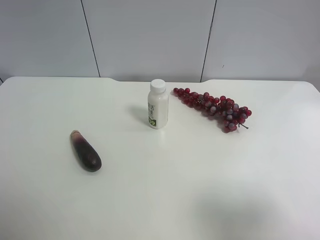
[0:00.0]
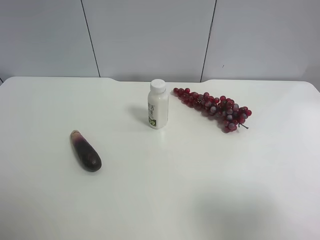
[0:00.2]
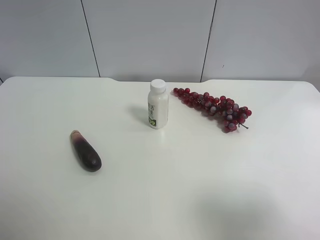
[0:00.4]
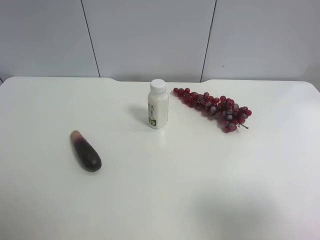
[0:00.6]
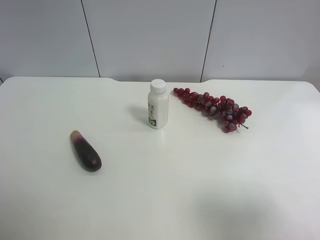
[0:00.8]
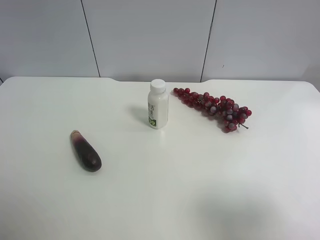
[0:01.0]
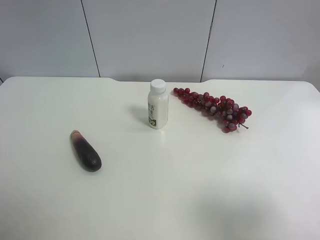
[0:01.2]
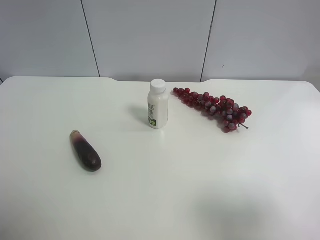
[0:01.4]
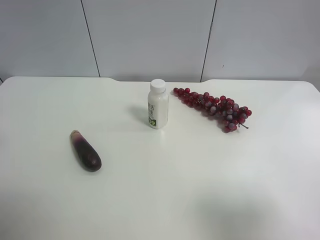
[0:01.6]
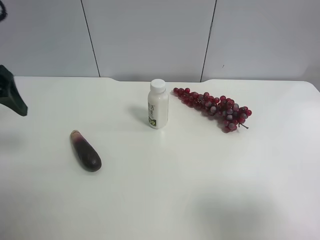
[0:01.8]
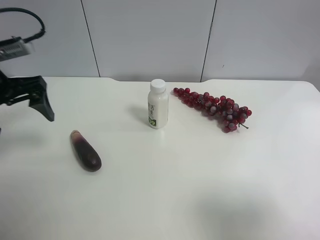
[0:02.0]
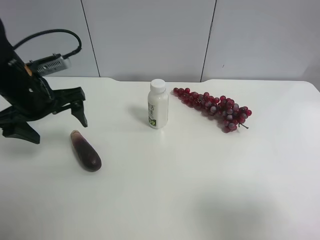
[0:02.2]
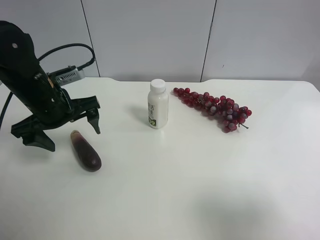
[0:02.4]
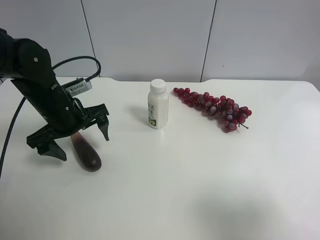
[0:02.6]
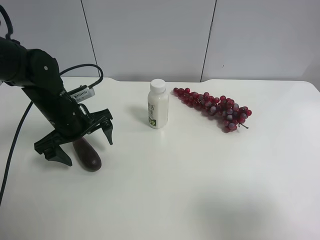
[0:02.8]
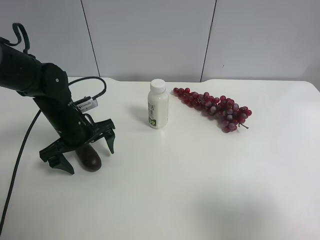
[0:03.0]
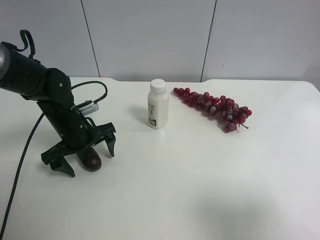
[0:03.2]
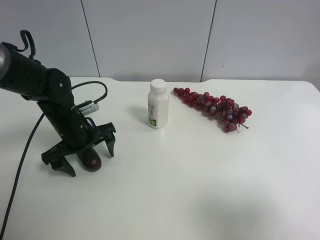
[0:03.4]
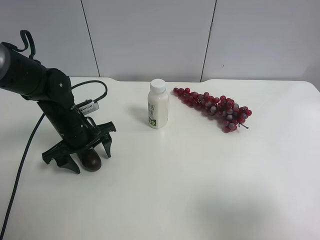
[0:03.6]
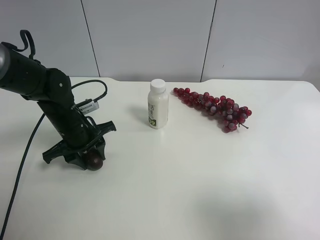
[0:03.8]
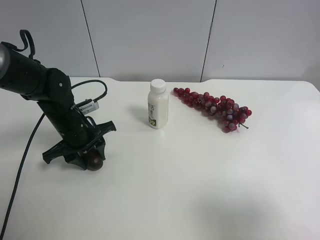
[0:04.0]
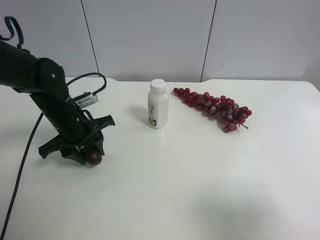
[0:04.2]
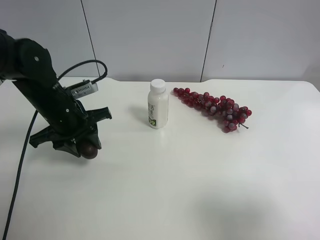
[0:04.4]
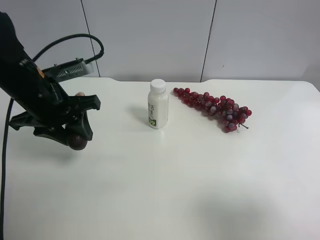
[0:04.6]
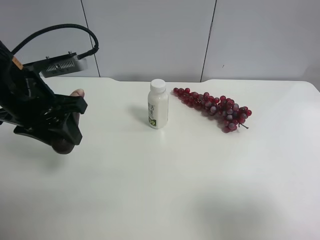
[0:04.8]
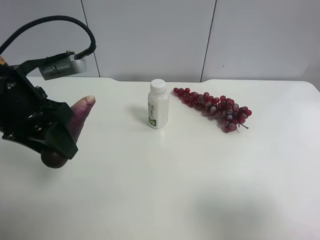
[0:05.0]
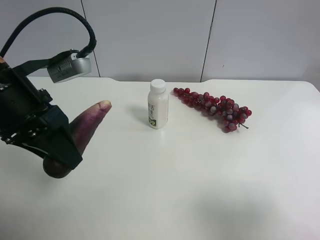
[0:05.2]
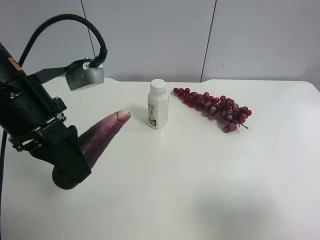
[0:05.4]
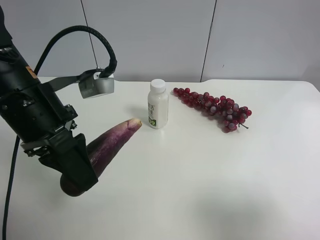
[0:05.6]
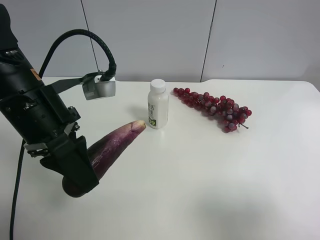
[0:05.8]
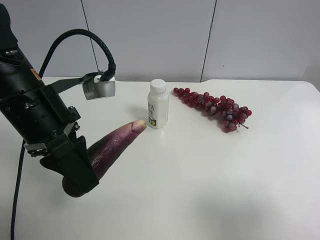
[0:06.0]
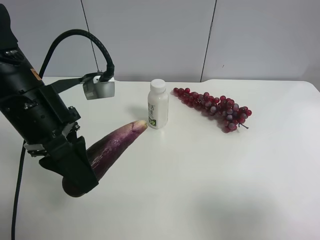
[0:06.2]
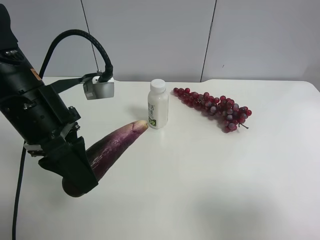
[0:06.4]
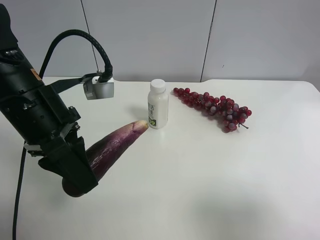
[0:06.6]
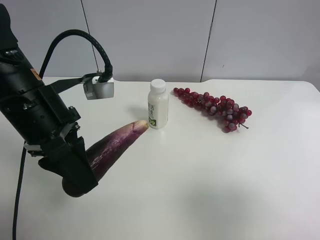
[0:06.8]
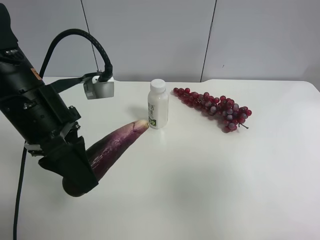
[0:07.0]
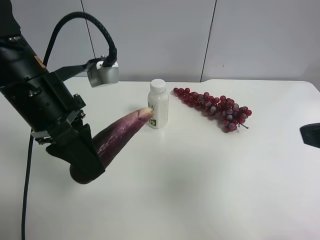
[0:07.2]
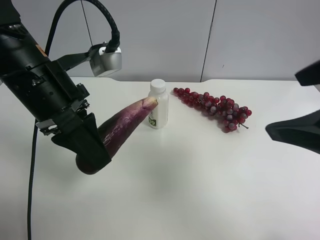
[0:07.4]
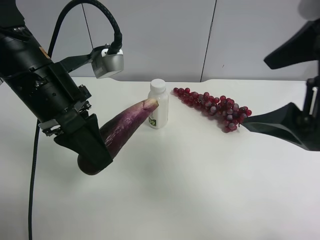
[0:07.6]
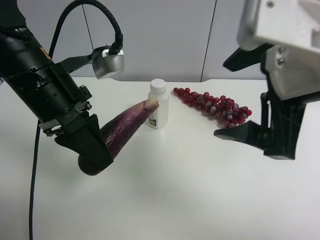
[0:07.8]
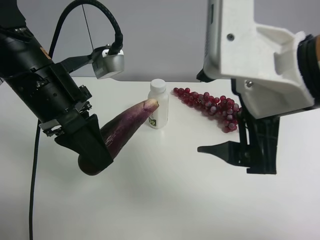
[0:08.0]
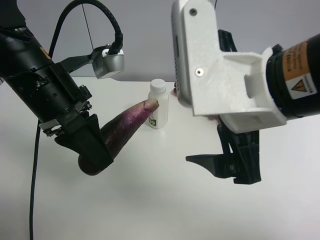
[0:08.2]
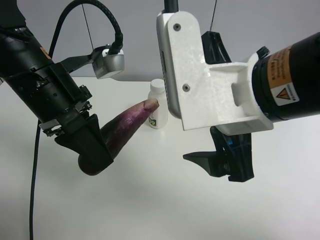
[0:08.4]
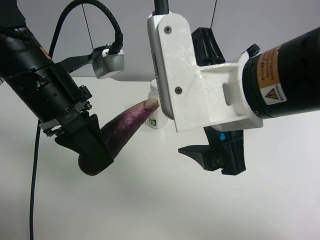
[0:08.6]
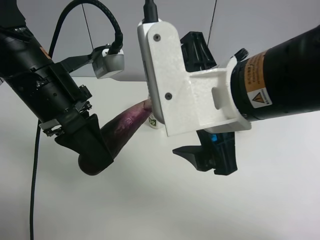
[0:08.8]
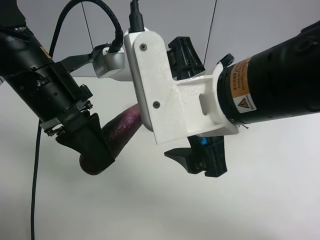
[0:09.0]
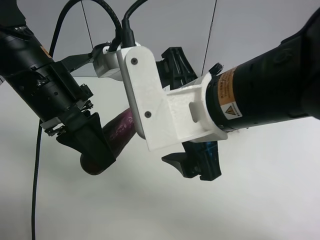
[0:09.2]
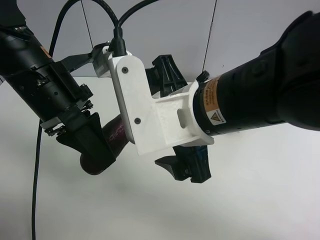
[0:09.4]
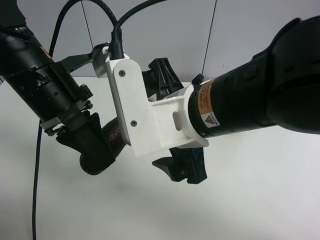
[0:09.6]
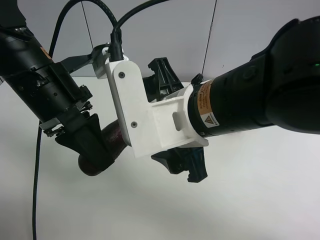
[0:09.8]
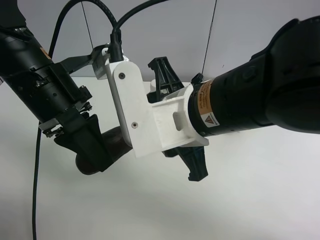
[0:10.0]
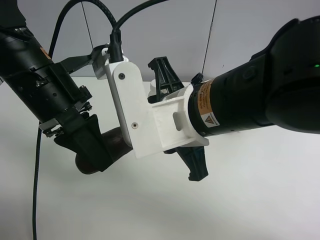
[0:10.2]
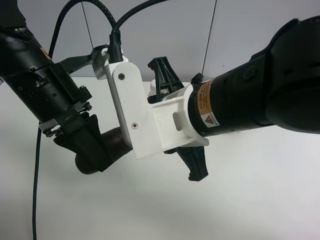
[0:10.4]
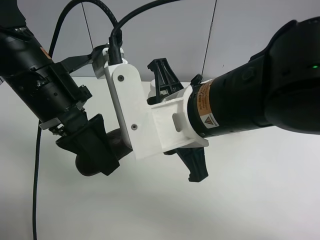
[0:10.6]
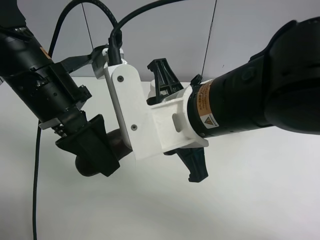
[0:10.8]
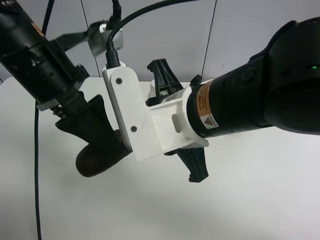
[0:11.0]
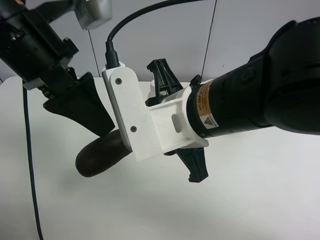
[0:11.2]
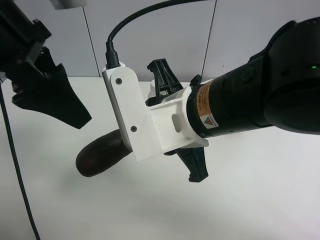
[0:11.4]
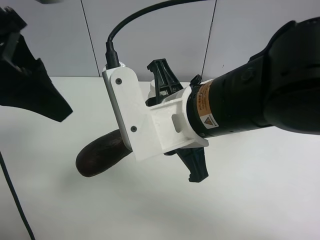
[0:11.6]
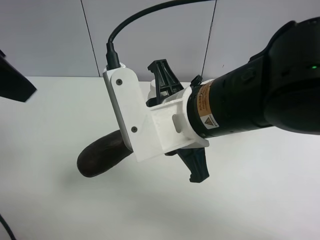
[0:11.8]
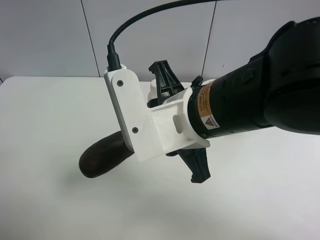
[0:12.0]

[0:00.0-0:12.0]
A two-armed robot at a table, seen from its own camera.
Task of the whole recording: use the left gripper to pick up the item and transfer it from the left gripper to the right gripper.
0:01.6 to 0:03.0: The left gripper shifts about 30 cm downward, to the right and forward.
0:03.0 to 0:04.4: The left gripper goes about 5 cm upward, and closes.
0:04.4 to 0:06.0: The left gripper travels backward and upward by approximately 10 cm.
0:06.0 to 0:07.6: The right gripper travels forward, to the left and upward by about 20 cm.
0:07.6 to 0:09.0: The right gripper shifts roughly 10 cm to the left and downward.
0:09.0 to 0:10.4: The right gripper closes.
0:10.4 to 0:12.0: The left gripper heads upward, to the left and backward, covering about 20 cm, and opens up.

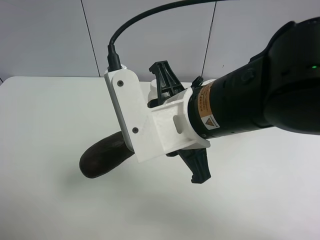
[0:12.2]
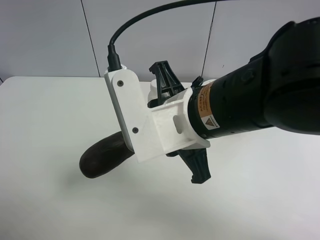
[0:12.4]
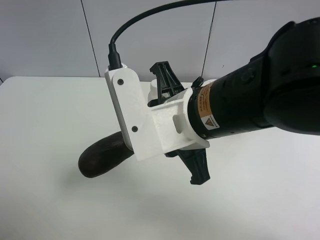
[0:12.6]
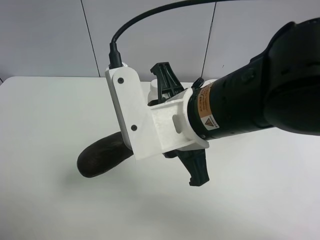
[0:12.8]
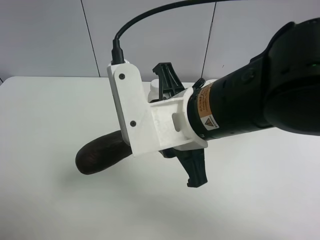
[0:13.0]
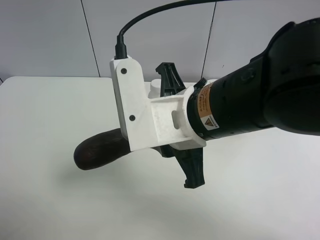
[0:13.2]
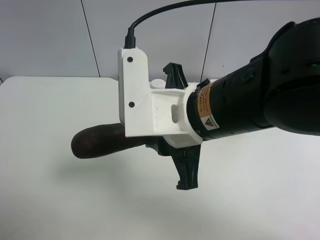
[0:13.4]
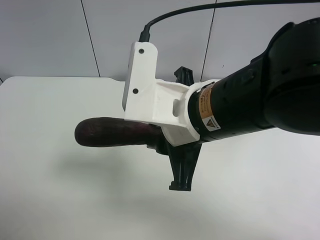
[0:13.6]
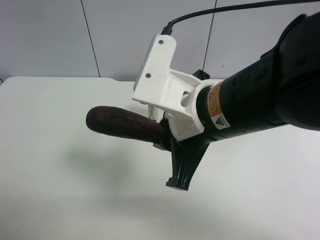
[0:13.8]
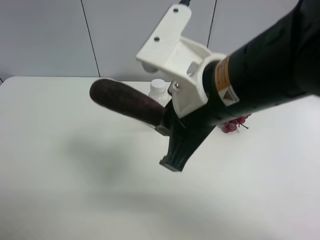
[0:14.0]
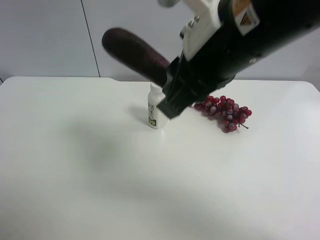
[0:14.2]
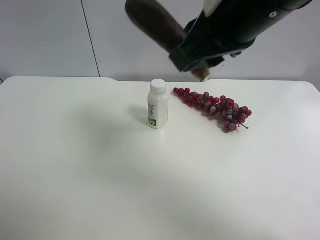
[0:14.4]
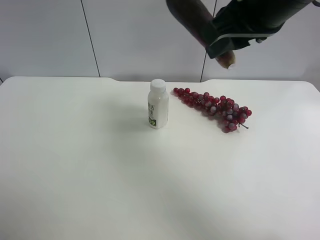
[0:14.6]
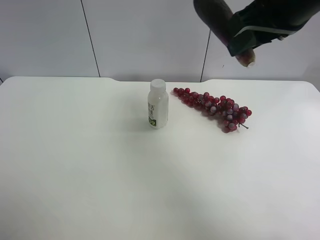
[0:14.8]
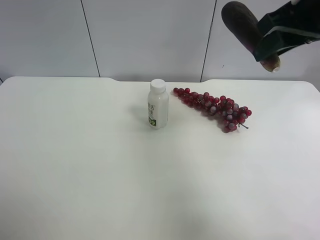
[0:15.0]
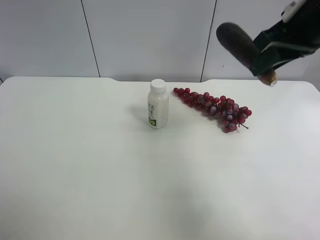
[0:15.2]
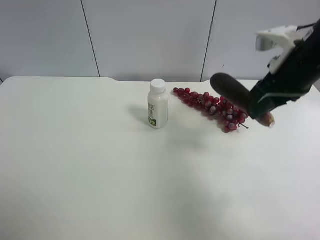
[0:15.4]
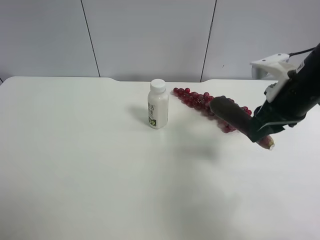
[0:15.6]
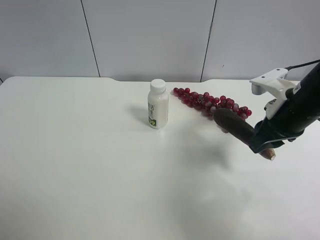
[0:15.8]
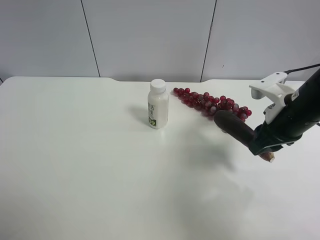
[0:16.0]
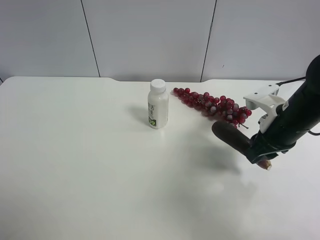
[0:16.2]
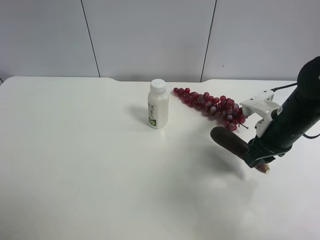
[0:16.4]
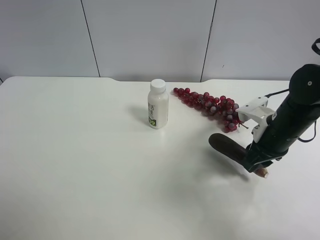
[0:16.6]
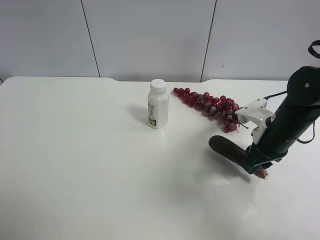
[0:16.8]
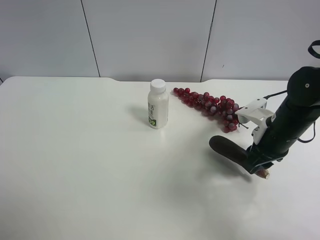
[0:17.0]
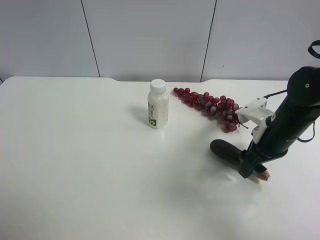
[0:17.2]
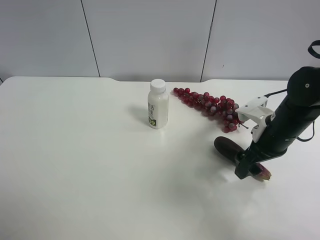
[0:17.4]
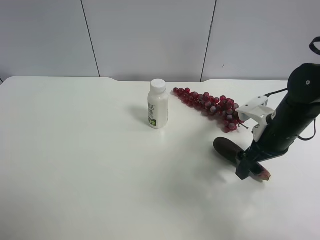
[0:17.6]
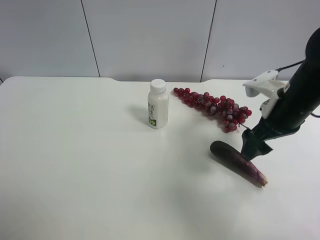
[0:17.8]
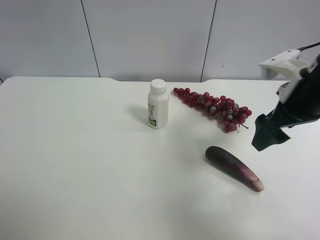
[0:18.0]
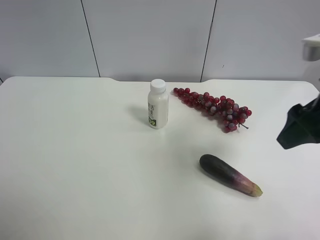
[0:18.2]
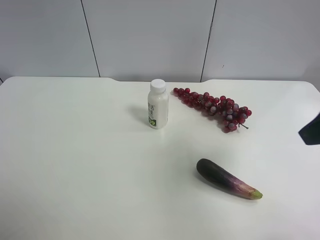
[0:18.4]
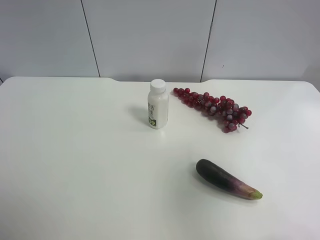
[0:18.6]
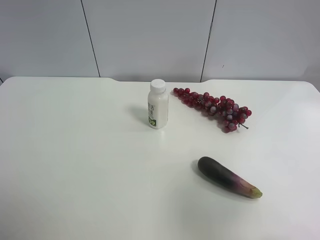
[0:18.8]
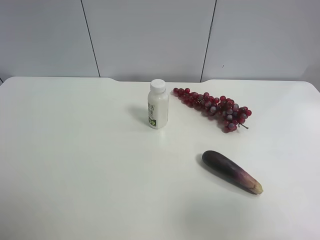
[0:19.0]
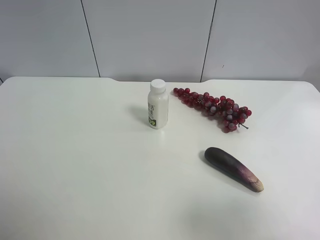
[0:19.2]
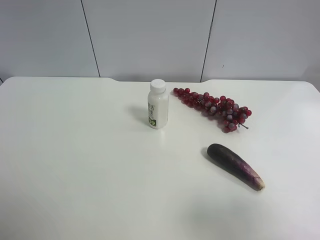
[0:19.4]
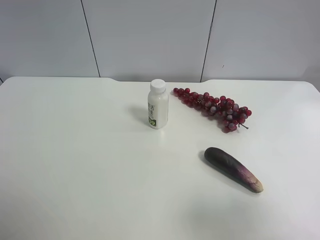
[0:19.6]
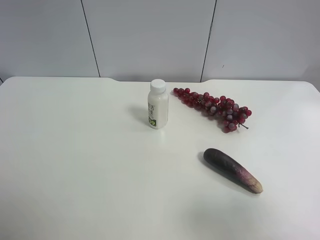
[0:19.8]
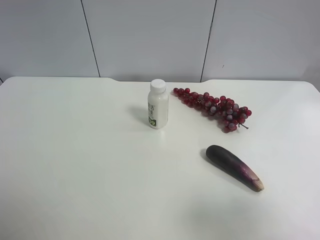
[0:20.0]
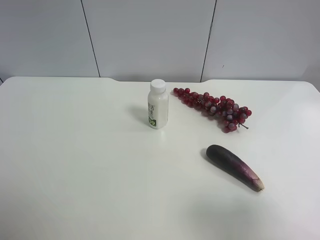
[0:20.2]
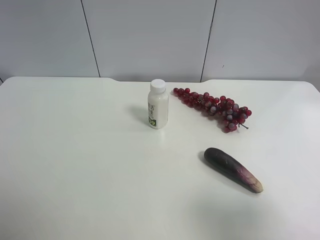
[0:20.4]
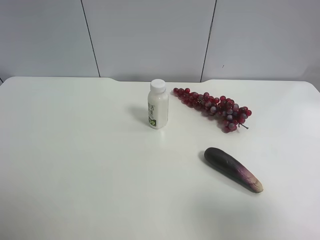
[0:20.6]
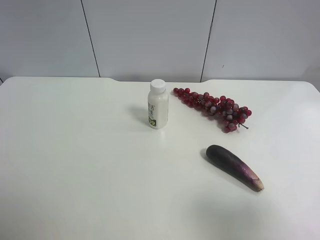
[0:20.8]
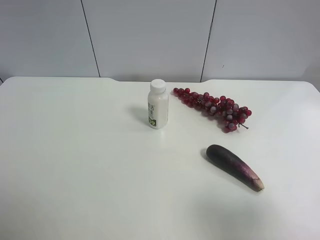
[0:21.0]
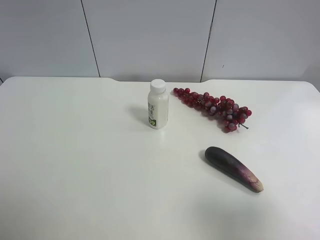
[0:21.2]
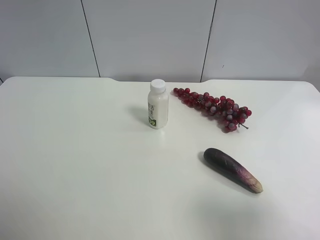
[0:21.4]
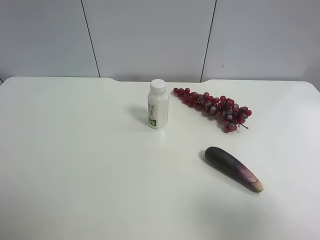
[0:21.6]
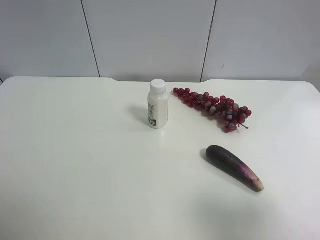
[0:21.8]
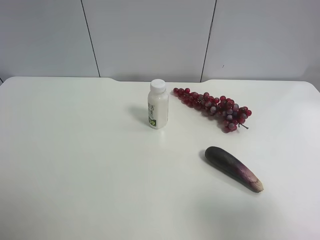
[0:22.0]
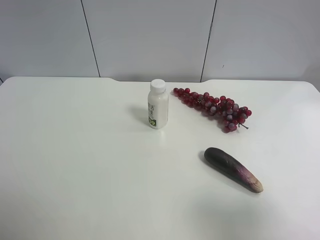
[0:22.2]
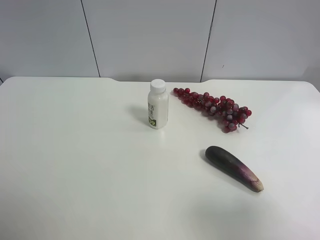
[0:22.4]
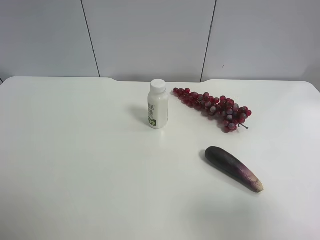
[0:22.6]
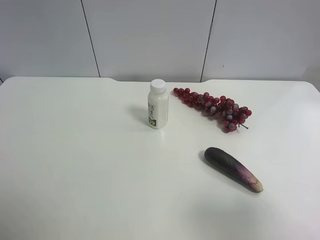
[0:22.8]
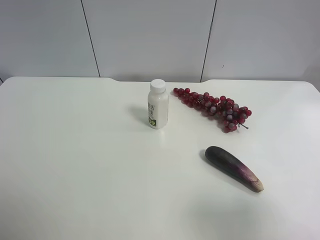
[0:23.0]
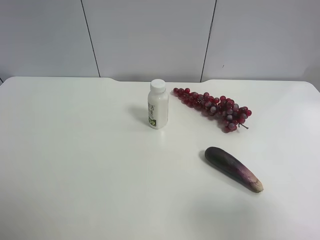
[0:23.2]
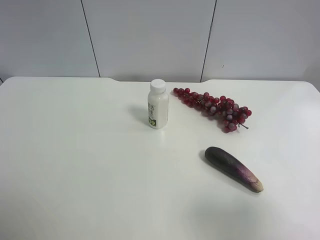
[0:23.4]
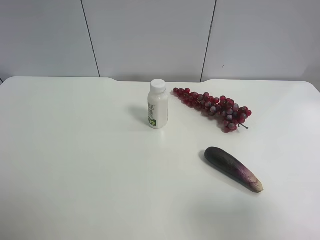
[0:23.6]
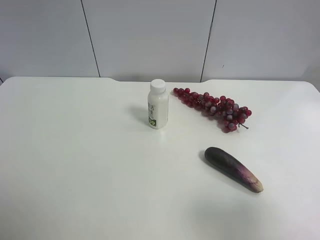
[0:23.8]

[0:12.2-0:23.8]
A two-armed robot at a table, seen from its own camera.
Task of the whole recording: use the left gripper to pick up the item and transfer it from the left gripper to the right gripper.
0:12.2 to 0:13.6: The left gripper moves downward, roughly 10 cm.
0:13.6 to 0:15.0: The right gripper is displaced to the right, forward and upward by roughly 25 cm.
0:15.0 to 0:16.6: The right gripper is displaced downward by roughly 20 cm.
0:16.6 to 0:18.0: The right gripper moves upward, approximately 10 cm, and opens.
0:18.0 to 0:19.4: The right gripper shifts approximately 25 cm backward.
0:22.4 to 0:23.8: The two grippers keep their place.
